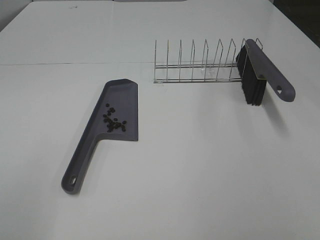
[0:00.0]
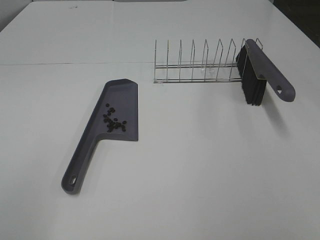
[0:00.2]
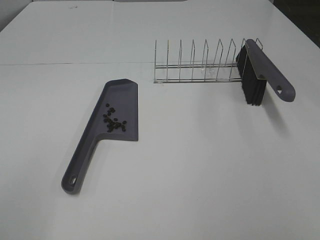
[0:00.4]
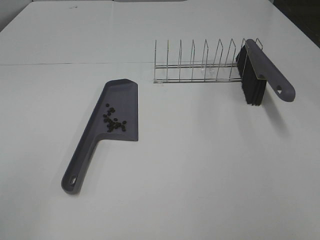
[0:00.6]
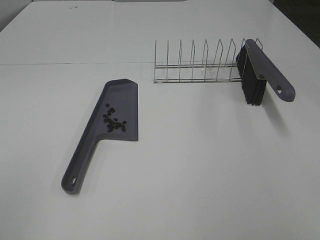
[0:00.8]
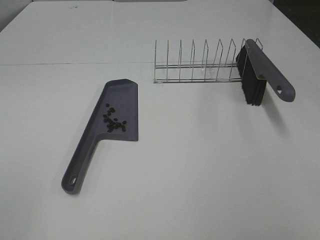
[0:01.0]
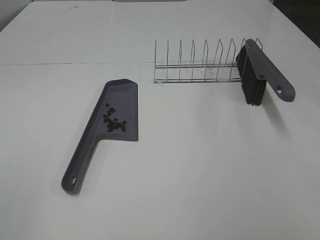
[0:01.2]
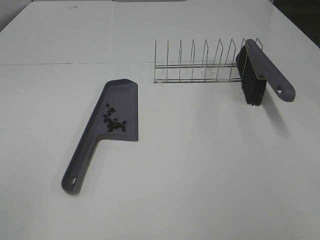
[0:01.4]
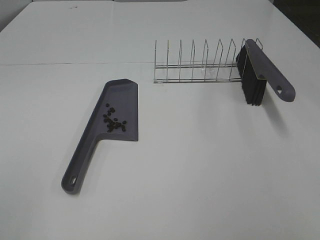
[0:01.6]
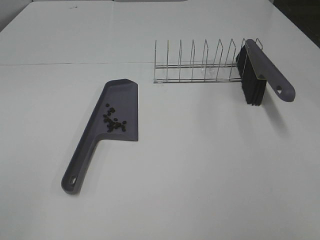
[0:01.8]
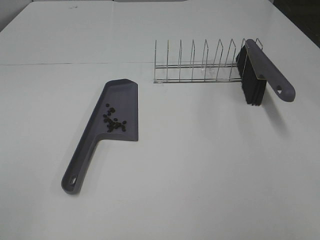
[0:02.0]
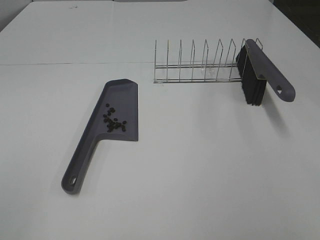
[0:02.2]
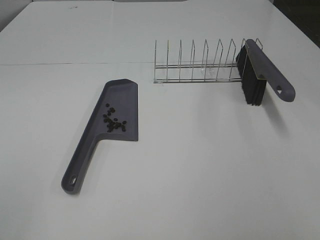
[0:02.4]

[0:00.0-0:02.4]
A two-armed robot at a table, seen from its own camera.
Task of the whole recording: Sweep Coffee Bean.
0:01.2 to 0:02.4: The two grippers keep their place.

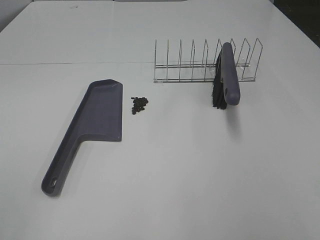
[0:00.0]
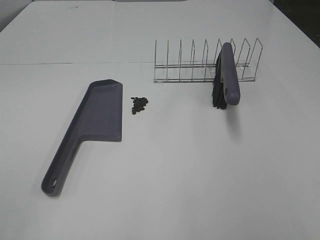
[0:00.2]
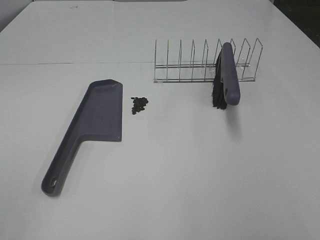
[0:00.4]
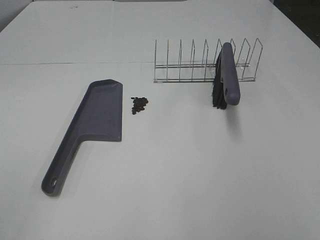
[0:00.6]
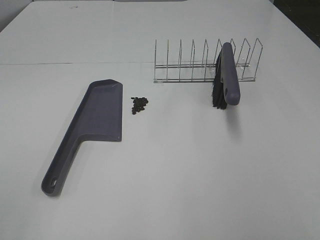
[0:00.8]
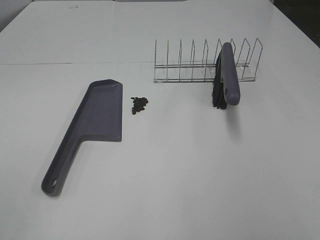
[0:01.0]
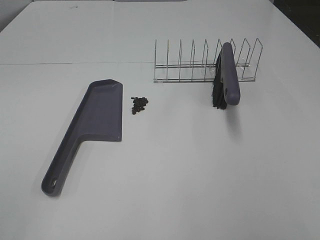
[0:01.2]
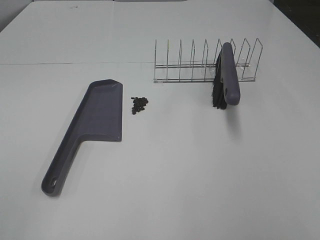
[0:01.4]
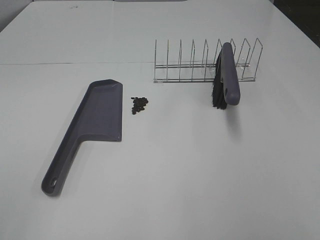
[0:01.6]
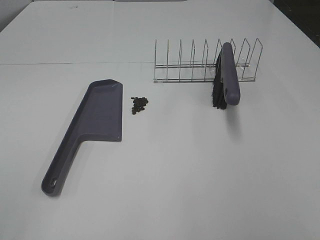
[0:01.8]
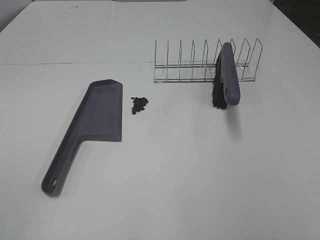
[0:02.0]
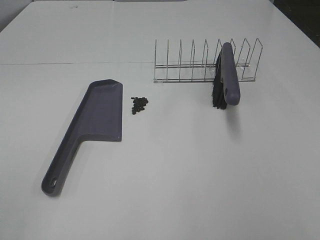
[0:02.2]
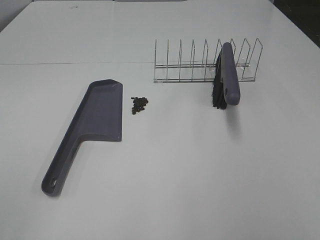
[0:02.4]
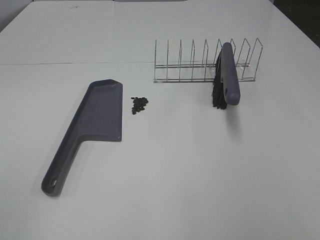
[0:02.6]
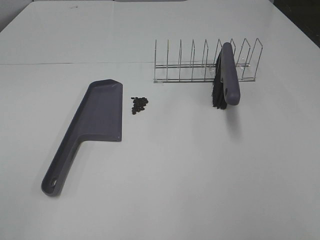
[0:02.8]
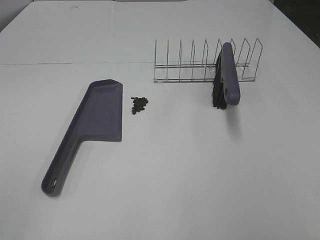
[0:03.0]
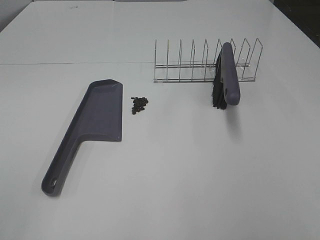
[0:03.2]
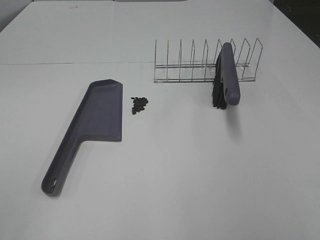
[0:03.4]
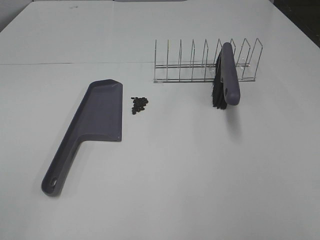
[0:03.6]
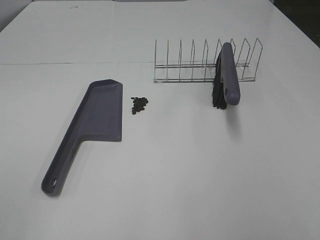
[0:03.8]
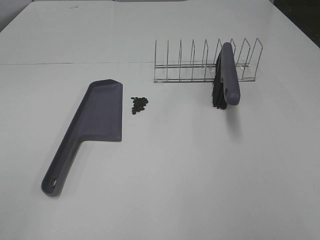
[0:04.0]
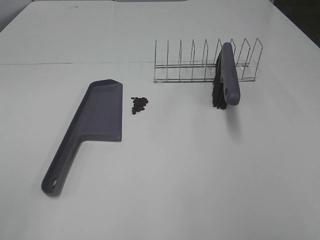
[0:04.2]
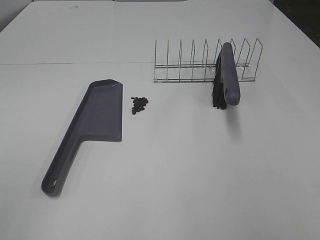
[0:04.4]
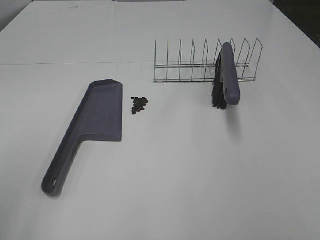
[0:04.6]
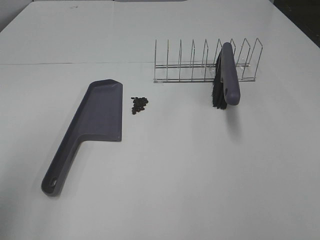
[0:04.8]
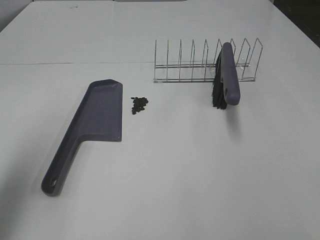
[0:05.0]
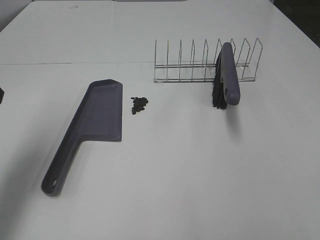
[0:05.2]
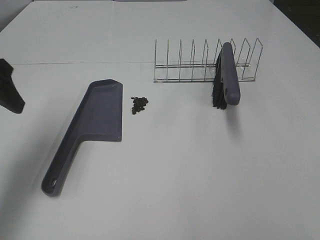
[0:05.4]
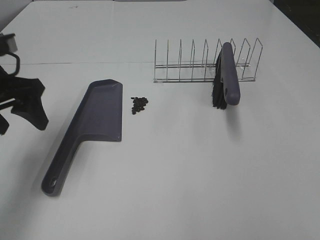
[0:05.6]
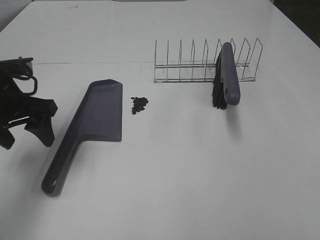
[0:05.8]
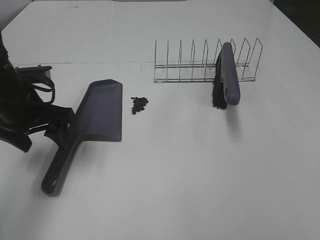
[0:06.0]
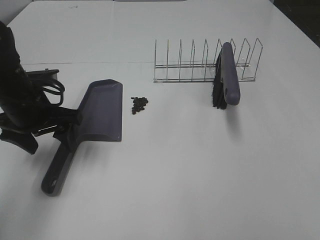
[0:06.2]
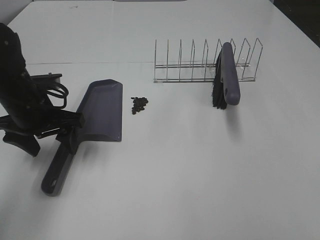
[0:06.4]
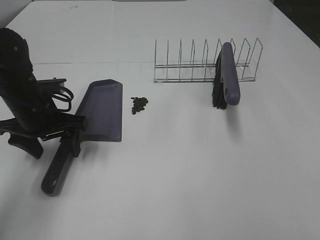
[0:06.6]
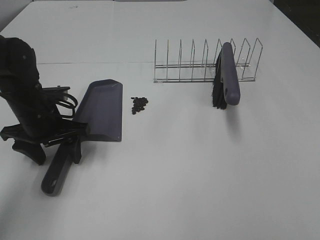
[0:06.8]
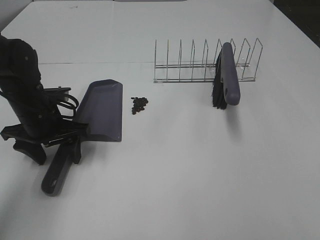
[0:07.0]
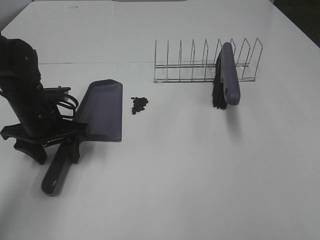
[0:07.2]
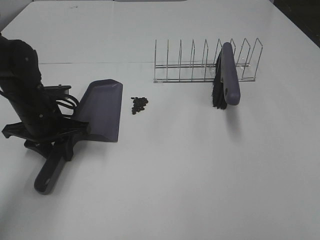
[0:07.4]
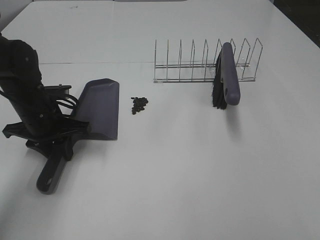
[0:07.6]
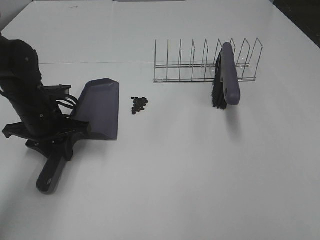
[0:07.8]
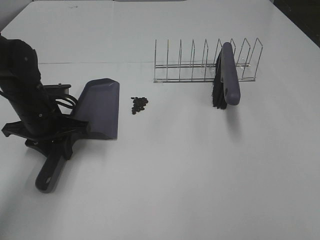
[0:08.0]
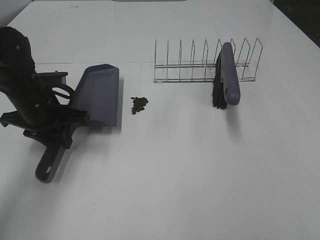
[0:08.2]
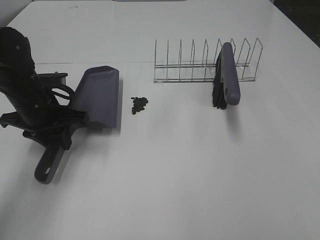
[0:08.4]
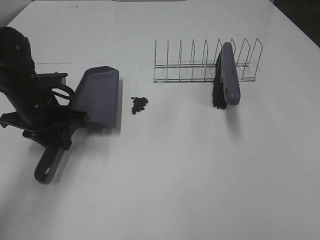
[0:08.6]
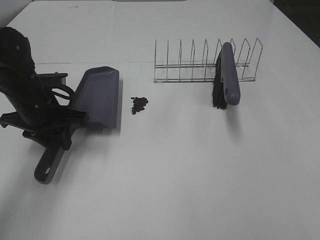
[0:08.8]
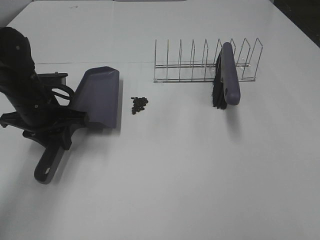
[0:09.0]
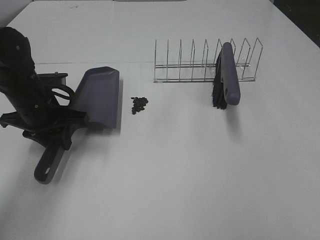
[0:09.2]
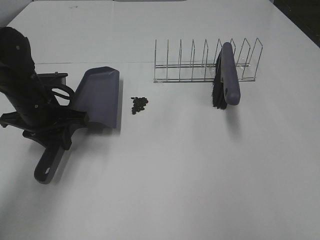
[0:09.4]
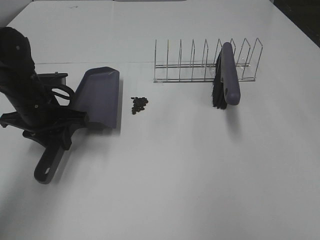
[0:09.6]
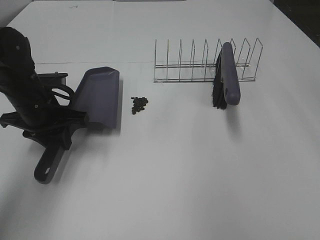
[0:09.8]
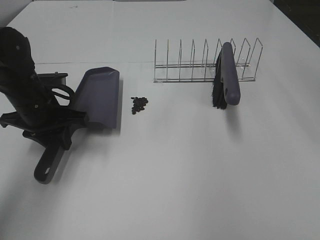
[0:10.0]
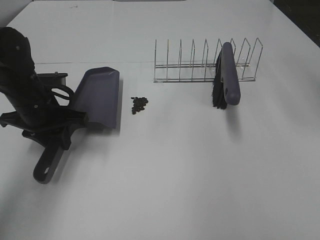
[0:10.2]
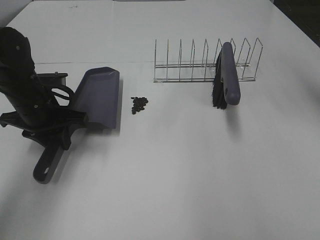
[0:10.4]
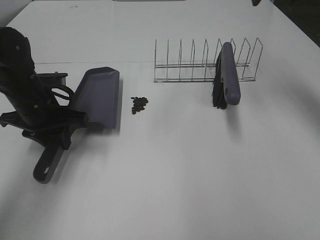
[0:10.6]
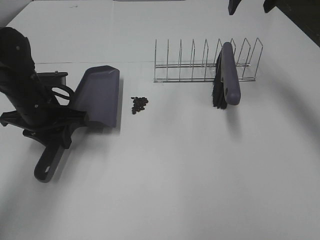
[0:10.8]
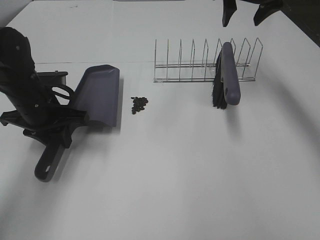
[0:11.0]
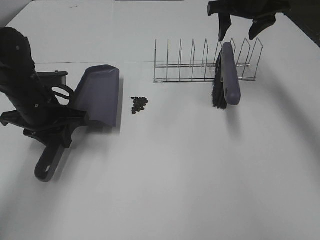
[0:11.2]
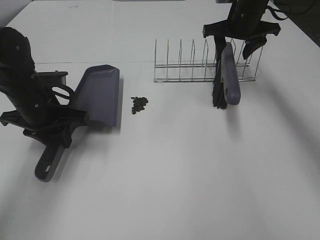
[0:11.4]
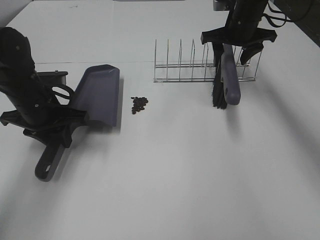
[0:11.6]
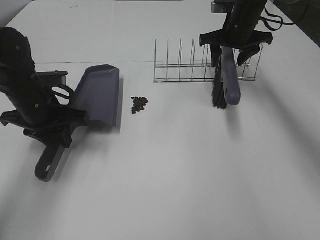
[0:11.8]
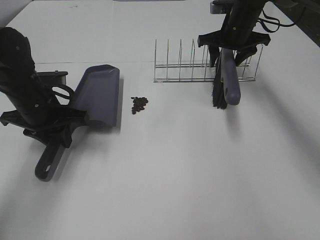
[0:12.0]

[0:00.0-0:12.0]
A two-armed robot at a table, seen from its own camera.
Task of the whole recording: Sweep Coffee Bean.
Step, 0:00.0 to 0:07.4: Left hand: grab the dustpan.
0:00.0 to 0:03.0: Neither gripper changes place.
0:04.4 to 0:06.0: The left gripper travels forward and downward by roughly 35 cm.
0:06.0 to 0:07.6: The left gripper moves downward, approximately 5 cm, and closes up.
0:07.6 to 0:09.0: The grippers stay close to where they were, moving slightly.
0:09.0 to 0:10.4: The right gripper goes about 40 cm forward.
0:10.4 to 0:12.0: The right gripper goes about 25 cm downward and forward.

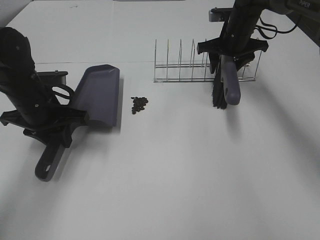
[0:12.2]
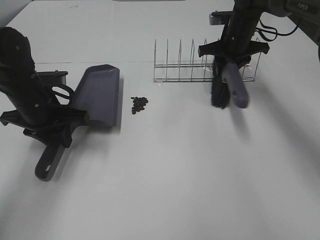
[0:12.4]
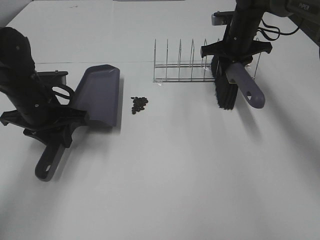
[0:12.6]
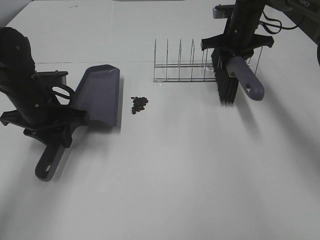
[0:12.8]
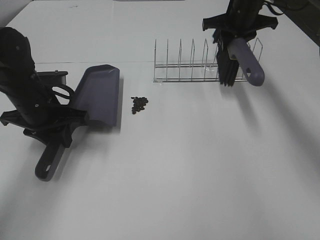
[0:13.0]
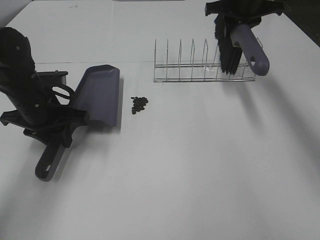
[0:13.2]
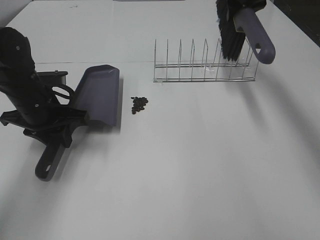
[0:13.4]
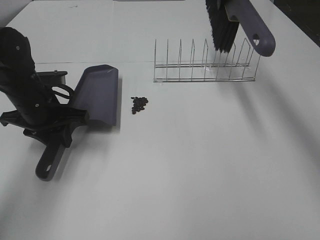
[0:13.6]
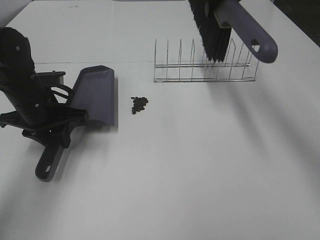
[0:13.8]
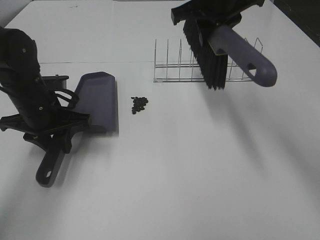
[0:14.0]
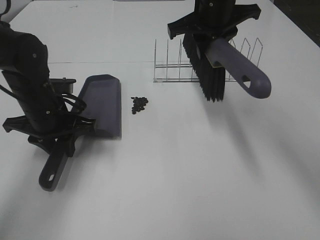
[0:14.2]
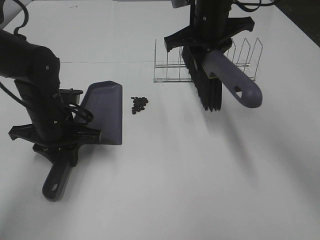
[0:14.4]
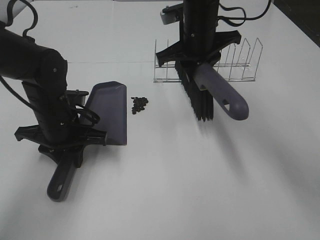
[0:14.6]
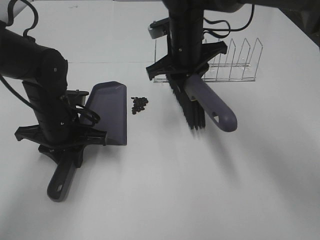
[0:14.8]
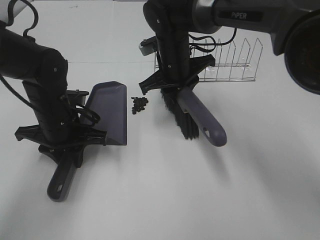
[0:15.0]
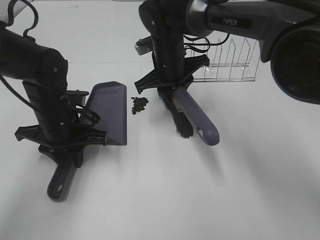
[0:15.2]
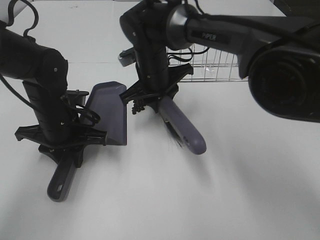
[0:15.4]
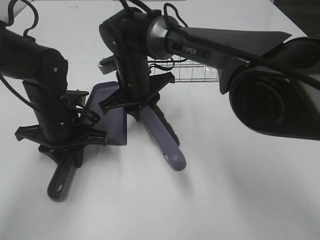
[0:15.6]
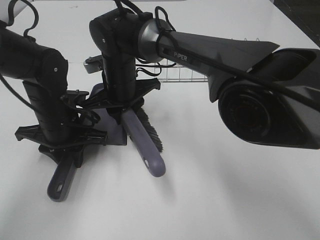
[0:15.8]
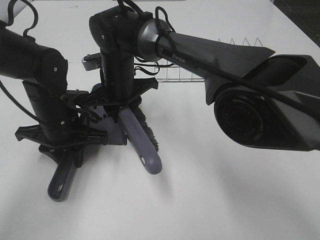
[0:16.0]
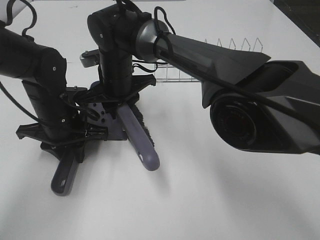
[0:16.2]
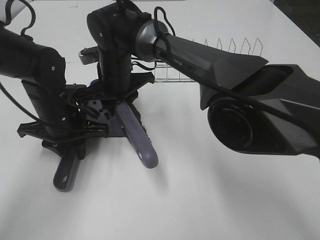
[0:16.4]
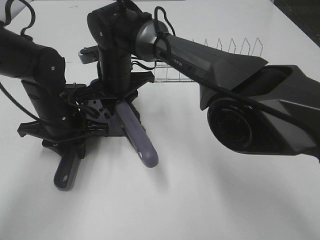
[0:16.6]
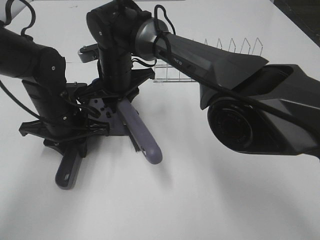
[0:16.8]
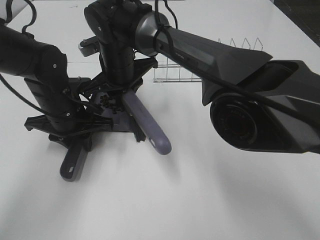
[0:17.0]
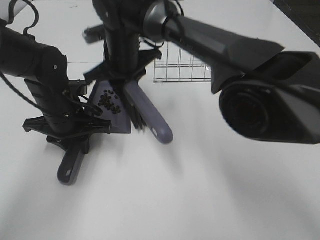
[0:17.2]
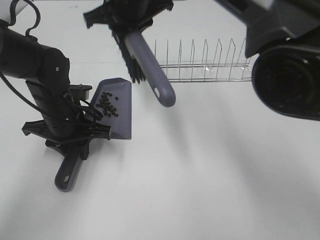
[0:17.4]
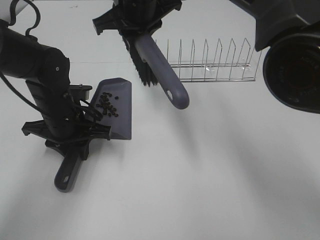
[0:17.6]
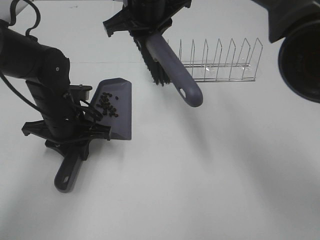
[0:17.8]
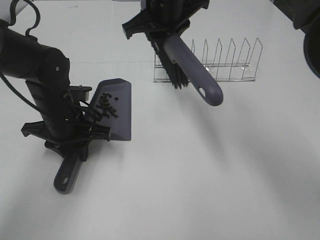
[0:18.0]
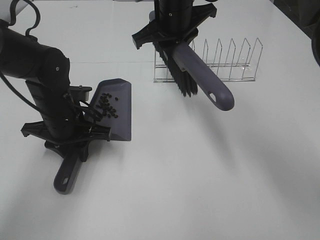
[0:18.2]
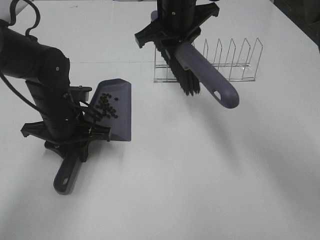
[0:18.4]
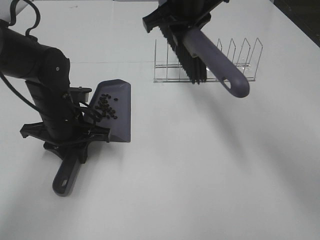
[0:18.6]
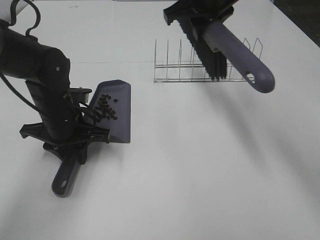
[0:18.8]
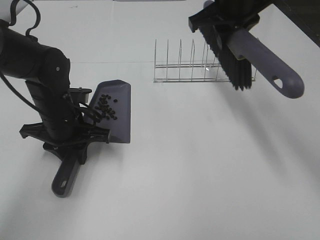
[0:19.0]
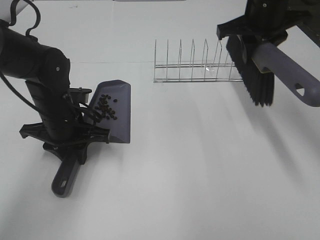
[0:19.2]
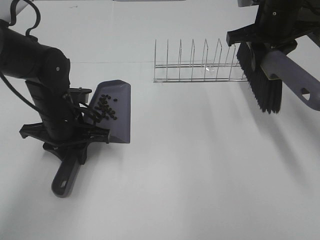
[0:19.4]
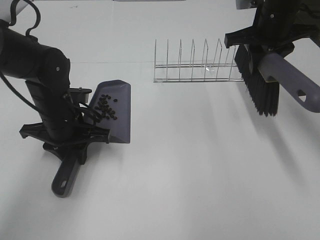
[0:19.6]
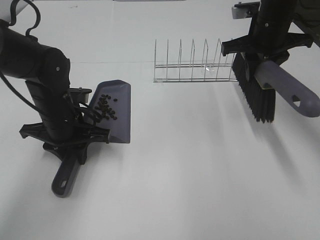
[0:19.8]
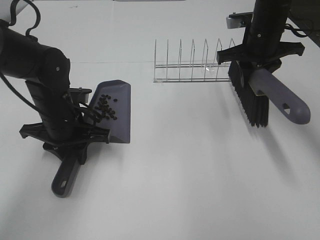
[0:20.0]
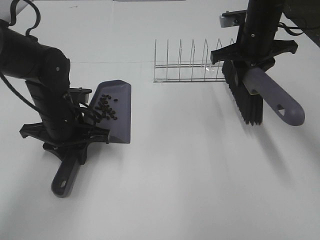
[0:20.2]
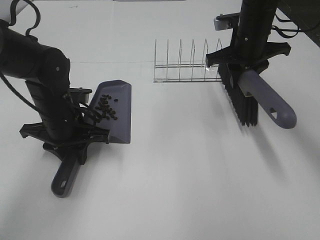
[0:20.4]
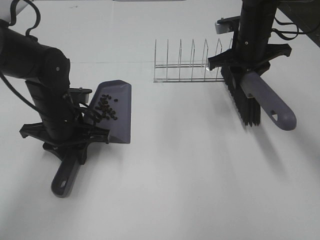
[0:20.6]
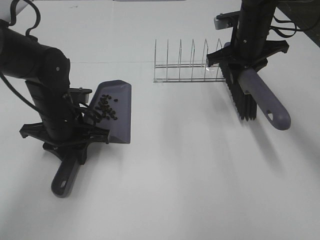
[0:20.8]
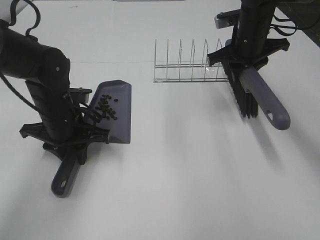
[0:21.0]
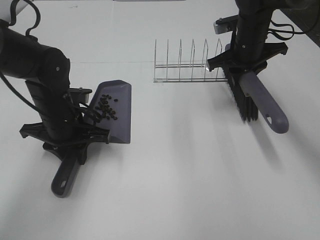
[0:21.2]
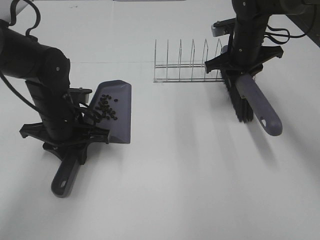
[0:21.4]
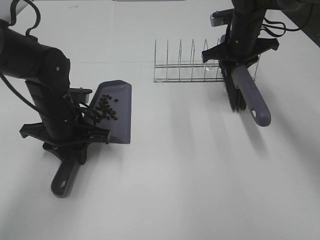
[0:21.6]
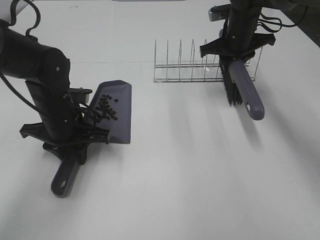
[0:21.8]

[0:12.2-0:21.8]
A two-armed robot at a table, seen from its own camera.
Task of the whole recording: Sweep Coffee Bean.
Step, 0:12.6 to 0:17.2: Right hand:sweep the coffee beans into the dustpan.
0:12.2 to 0:13.8: The right gripper is displaced upward, backward and to the left by roughly 20 cm, and closes up.
0:13.8 to 0:15.4: The left gripper ends up some 5 cm from where it was. Meanwhile the right gripper heads downward and to the left, covering approximately 25 cm.
0:15.4 to 0:17.0: The right gripper goes some 5 cm to the left.
0:17.0 to 0:18.6: The right gripper goes some 20 cm to the right and upward.
0:18.6 to 0:20.2: The right gripper heads to the right and downward, covering approximately 15 cm.
0:20.2 to 0:21.8: The right gripper heads forward, covering approximately 5 cm.
